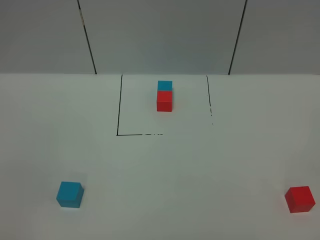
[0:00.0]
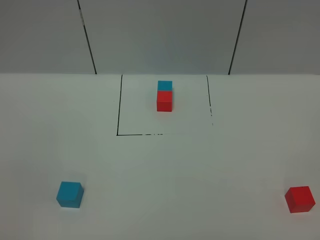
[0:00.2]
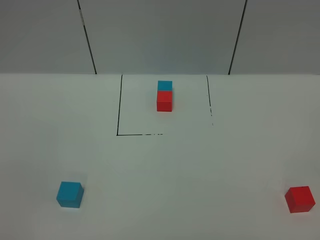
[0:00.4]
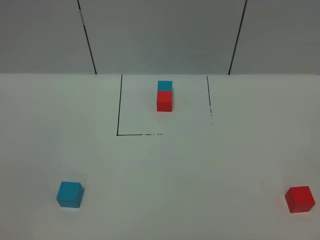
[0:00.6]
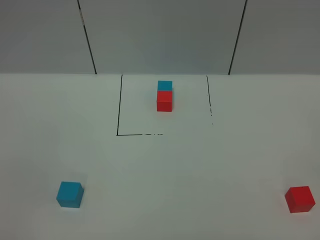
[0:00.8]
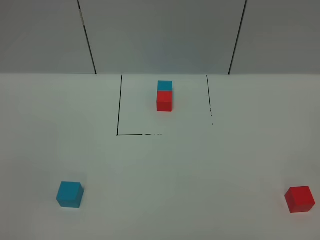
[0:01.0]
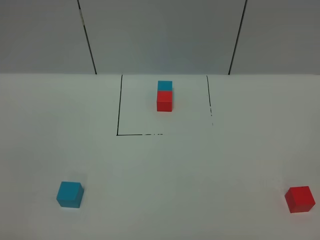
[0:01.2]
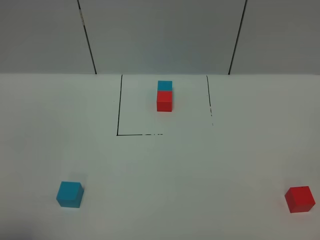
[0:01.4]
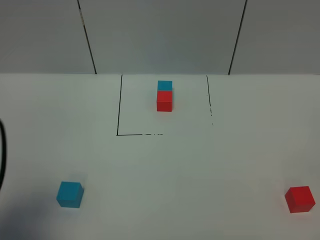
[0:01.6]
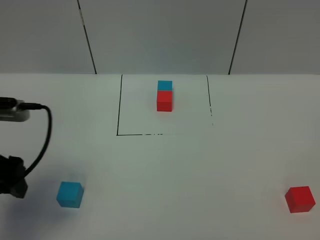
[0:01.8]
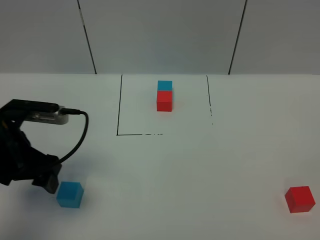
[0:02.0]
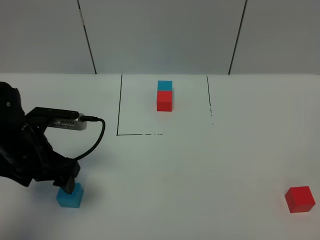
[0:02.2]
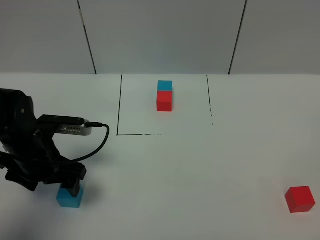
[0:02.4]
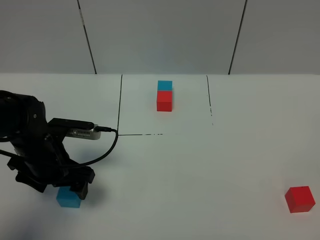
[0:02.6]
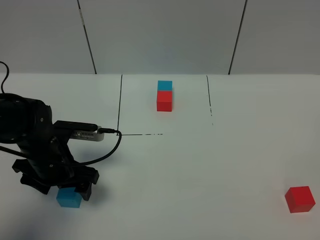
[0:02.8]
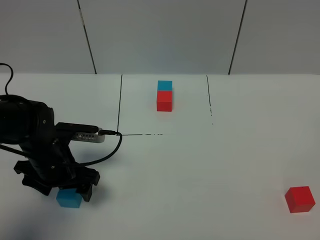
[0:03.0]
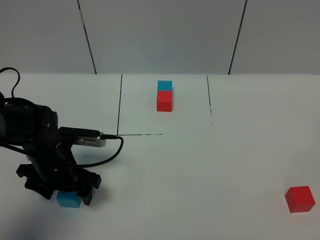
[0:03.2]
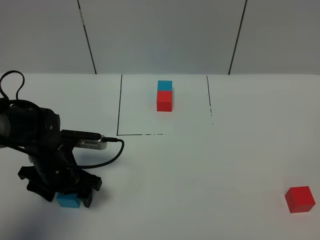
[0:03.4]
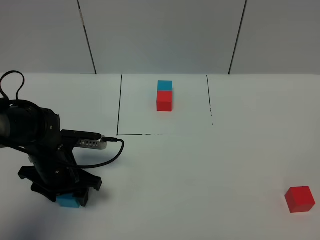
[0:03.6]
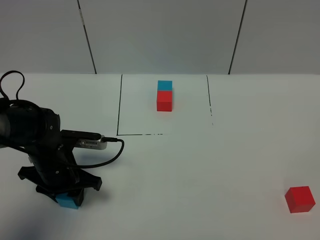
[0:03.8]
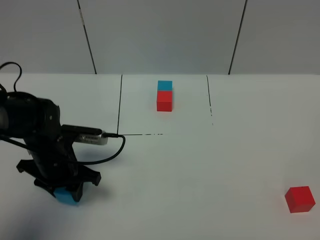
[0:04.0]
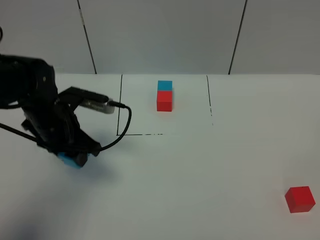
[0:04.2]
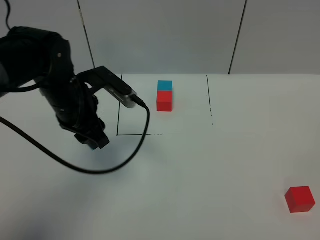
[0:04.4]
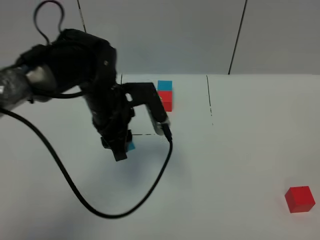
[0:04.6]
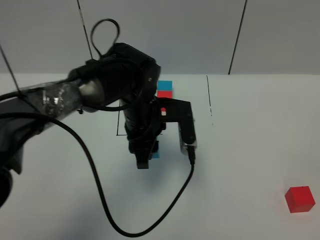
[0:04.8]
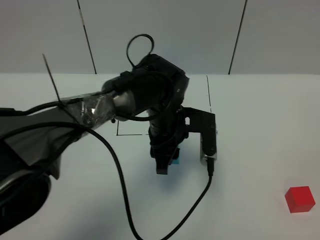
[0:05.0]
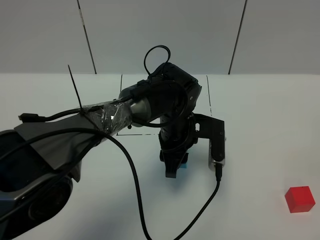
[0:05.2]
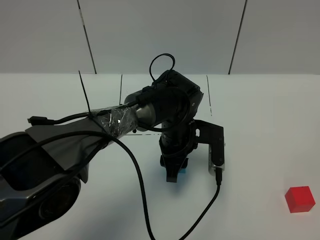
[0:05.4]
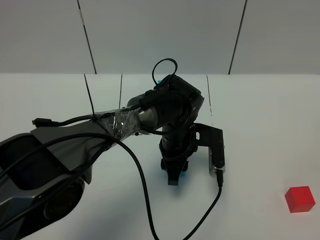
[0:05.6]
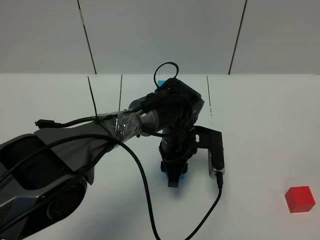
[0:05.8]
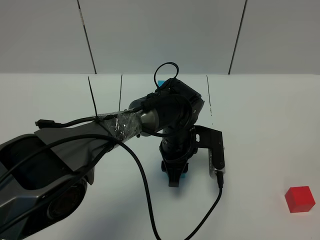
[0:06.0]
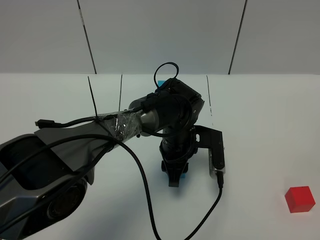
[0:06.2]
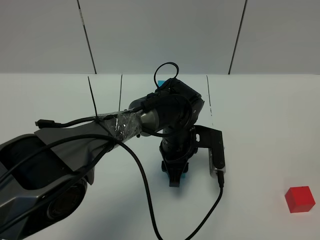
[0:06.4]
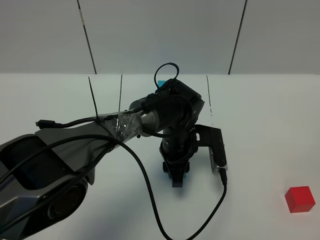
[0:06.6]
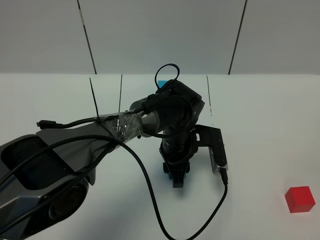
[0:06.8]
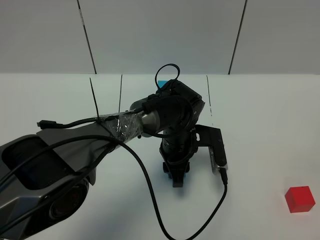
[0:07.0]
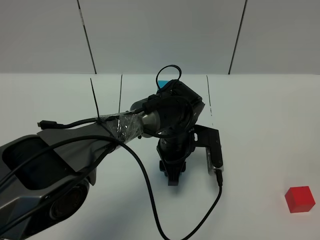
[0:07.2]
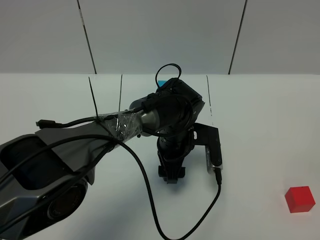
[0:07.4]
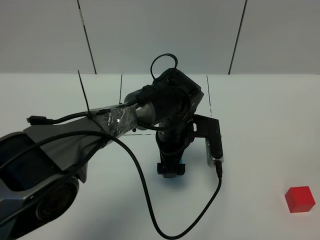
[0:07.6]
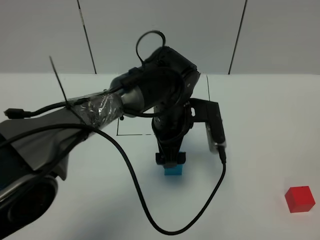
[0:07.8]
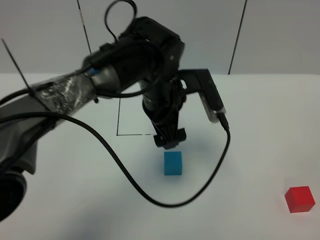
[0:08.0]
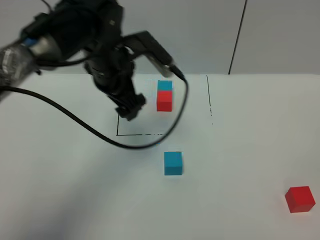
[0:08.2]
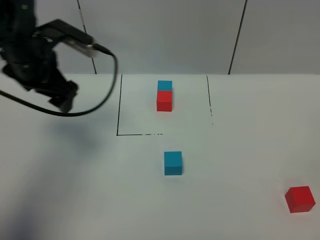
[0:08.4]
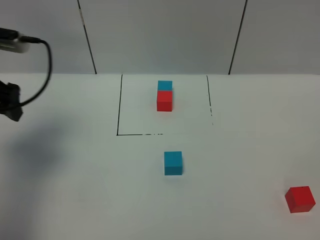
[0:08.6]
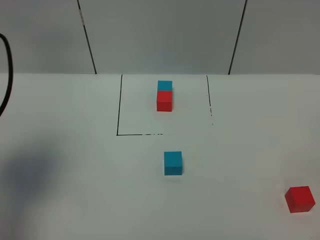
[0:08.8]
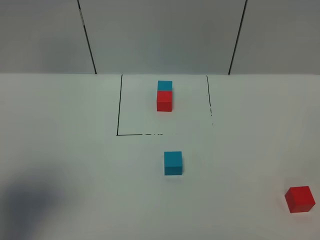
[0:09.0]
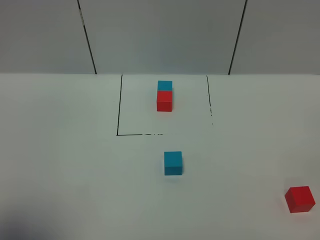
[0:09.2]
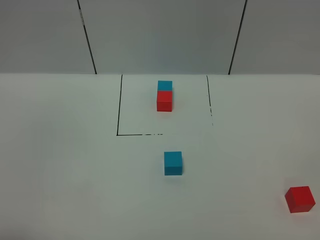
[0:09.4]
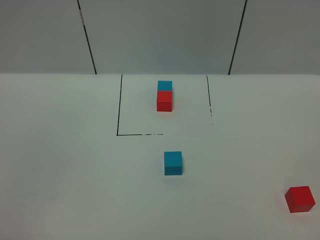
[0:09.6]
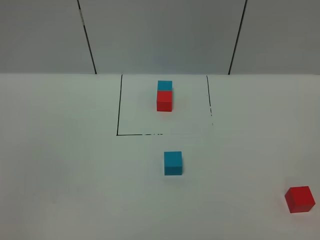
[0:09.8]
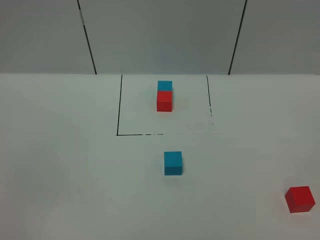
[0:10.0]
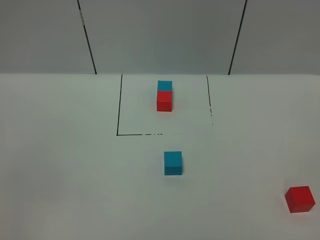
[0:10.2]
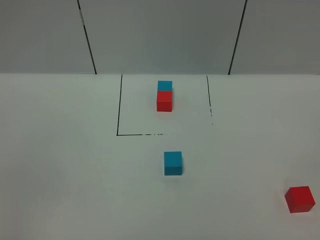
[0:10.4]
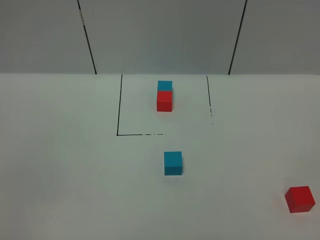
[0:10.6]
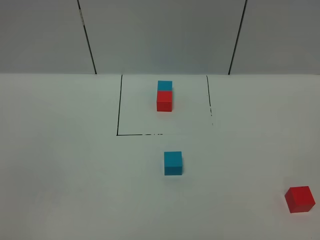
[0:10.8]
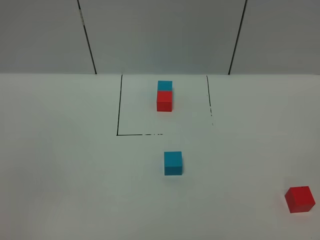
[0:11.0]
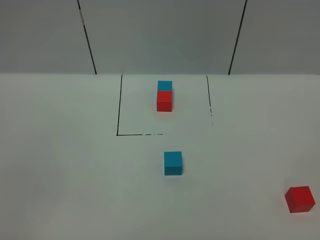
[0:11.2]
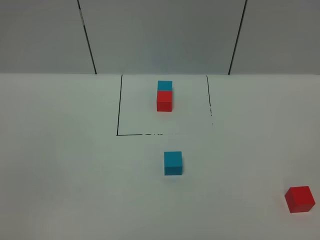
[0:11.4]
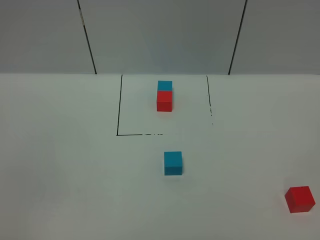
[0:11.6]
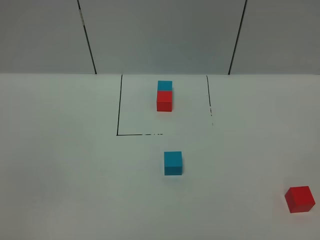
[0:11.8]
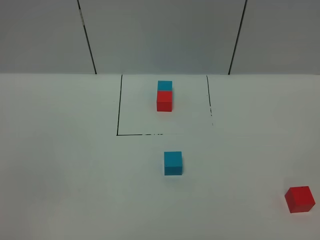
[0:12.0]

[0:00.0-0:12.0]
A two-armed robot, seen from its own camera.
Task of the whole recording: According to the building block template in front, assemble the scattered blocks together.
Step, 0:01.6 to 0:07.6: Put the blue cube in the center of the table.
0:00.0 to 0:01.6: The left gripper heads forward, covering approximately 20 cm.
0:01.6 to 0:03.0: The left gripper goes roughly 25 cm downward, forward and to the right.
0:03.0 to 0:04.4: The left gripper shifts roughly 15 cm upward, to the right and forward, and closes.
0:04.4 to 0:06.0: The left gripper is displaced to the right and downward by approximately 20 cm.
0:06.0 to 0:07.6: The left gripper opens its fingers.
0:07.6 to 0:09.0: The left gripper heads to the left, upward and backward, covering some 40 cm.
0:09.0 to 0:10.4: The left gripper is displaced backward and downward by approximately 20 cm.
0:10.4 to 0:12.0: Neither gripper changes place.

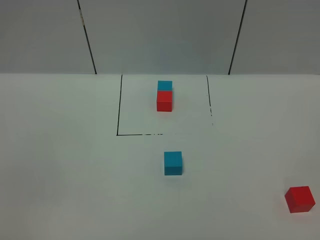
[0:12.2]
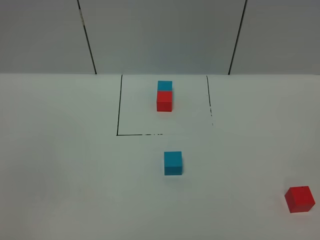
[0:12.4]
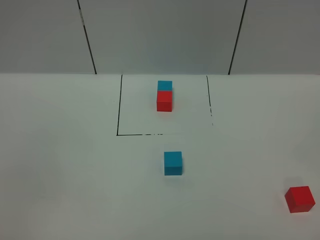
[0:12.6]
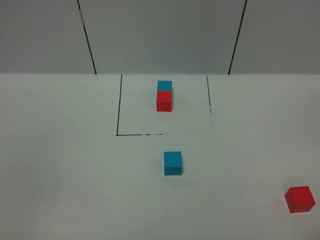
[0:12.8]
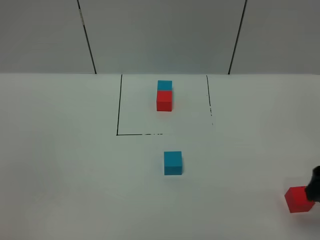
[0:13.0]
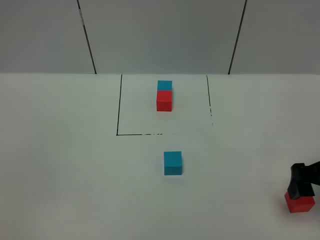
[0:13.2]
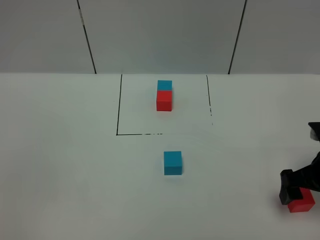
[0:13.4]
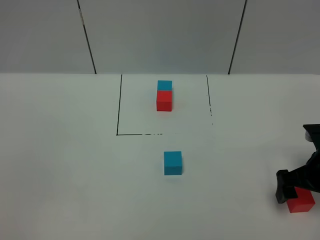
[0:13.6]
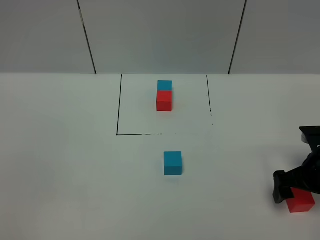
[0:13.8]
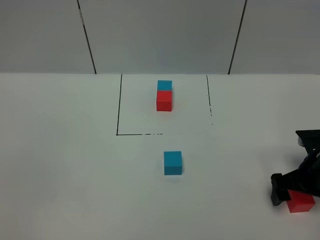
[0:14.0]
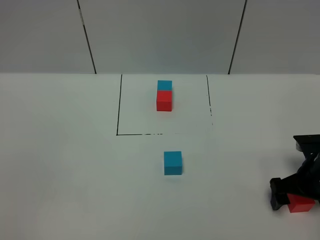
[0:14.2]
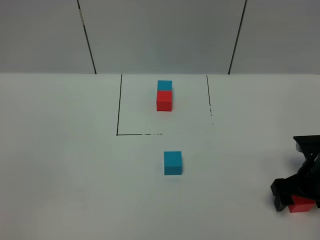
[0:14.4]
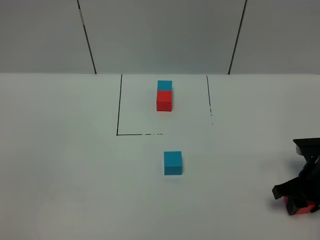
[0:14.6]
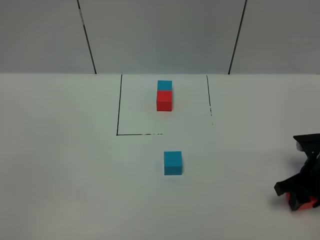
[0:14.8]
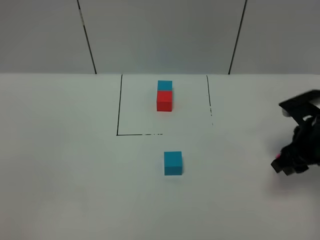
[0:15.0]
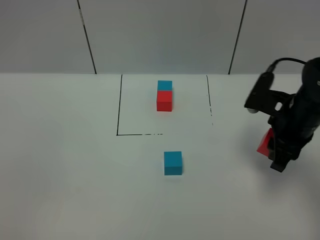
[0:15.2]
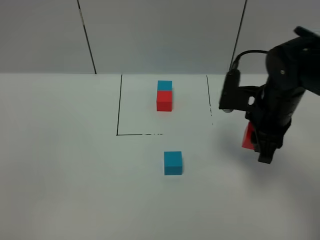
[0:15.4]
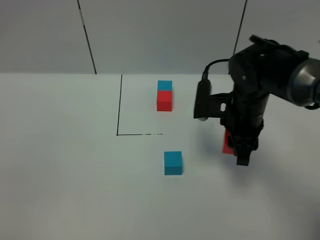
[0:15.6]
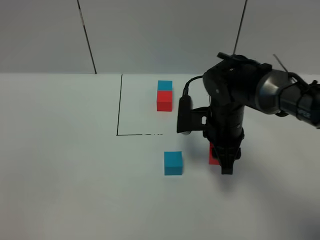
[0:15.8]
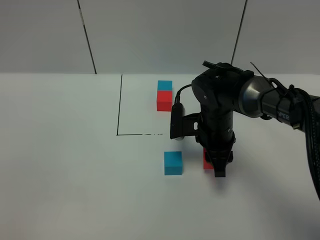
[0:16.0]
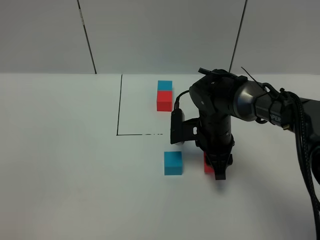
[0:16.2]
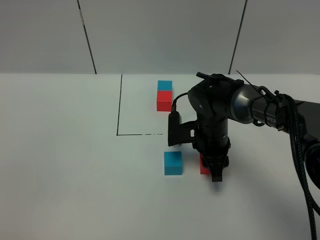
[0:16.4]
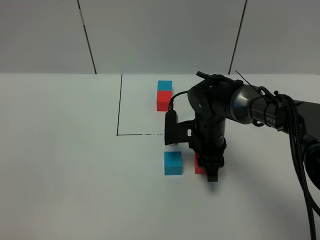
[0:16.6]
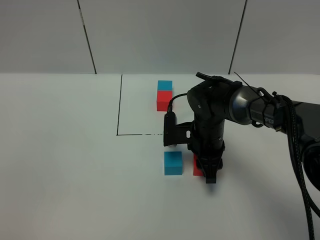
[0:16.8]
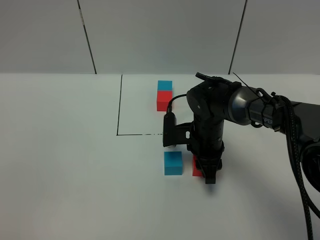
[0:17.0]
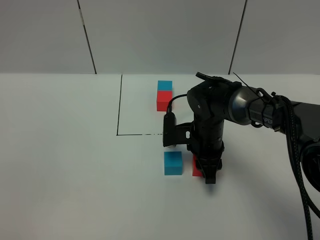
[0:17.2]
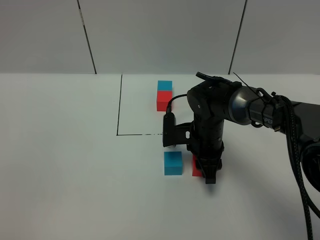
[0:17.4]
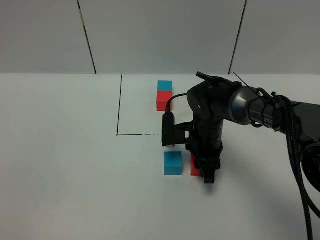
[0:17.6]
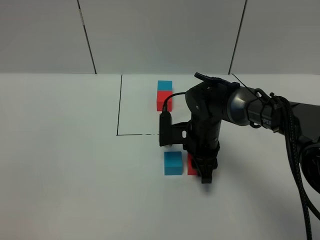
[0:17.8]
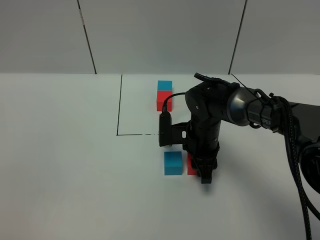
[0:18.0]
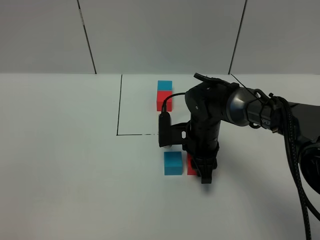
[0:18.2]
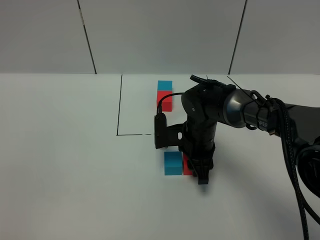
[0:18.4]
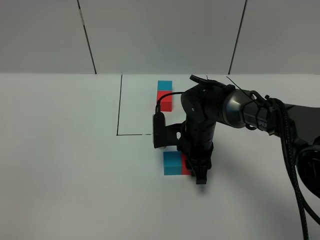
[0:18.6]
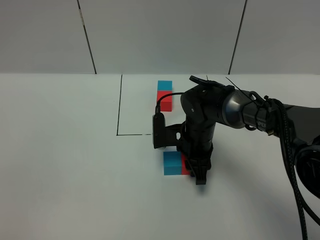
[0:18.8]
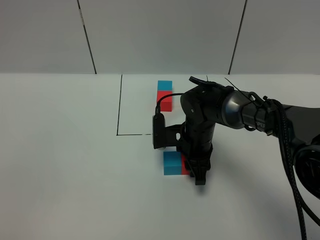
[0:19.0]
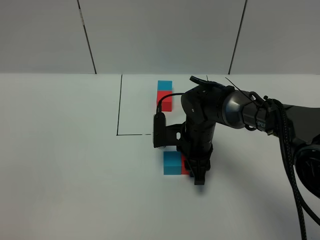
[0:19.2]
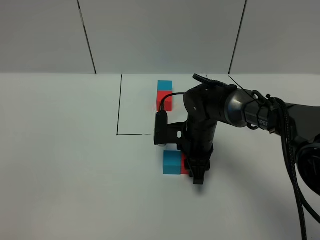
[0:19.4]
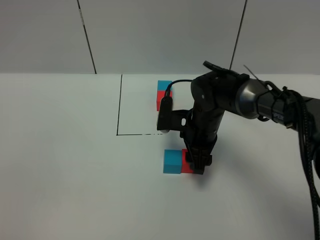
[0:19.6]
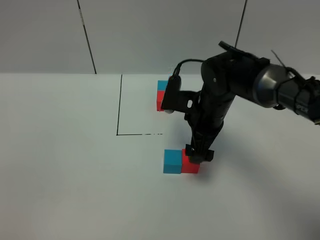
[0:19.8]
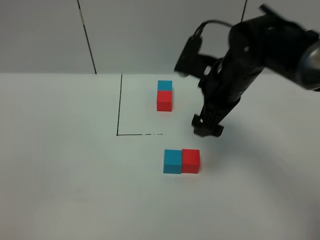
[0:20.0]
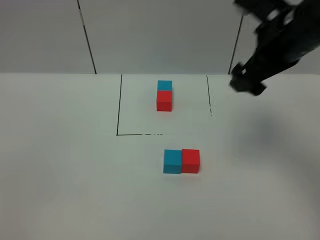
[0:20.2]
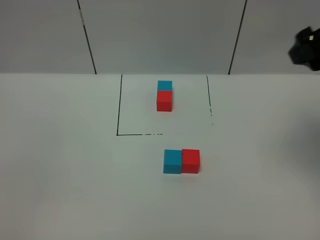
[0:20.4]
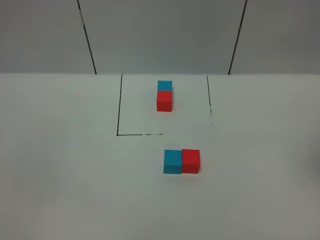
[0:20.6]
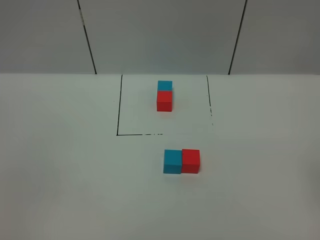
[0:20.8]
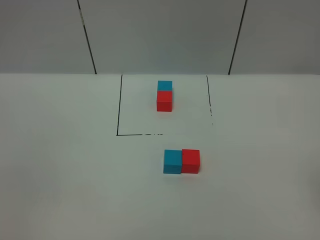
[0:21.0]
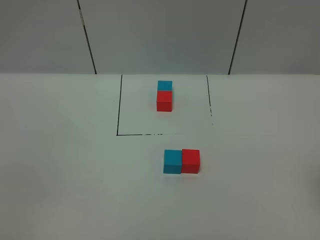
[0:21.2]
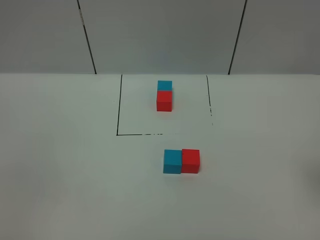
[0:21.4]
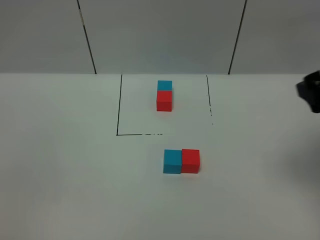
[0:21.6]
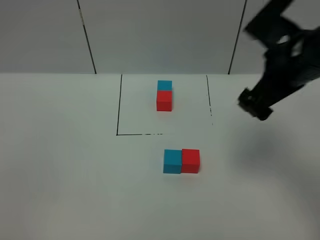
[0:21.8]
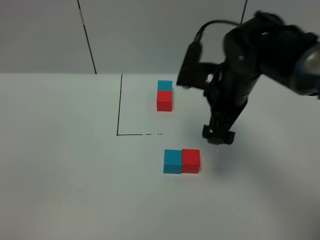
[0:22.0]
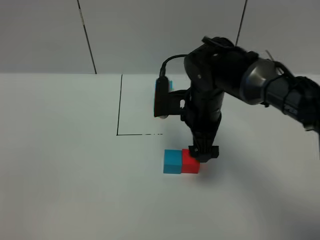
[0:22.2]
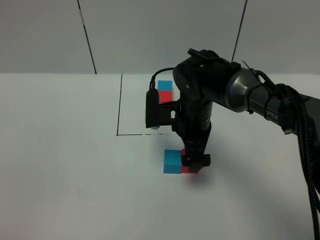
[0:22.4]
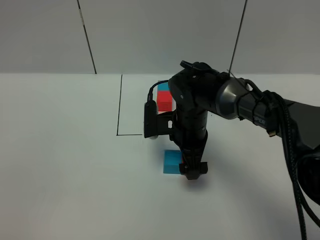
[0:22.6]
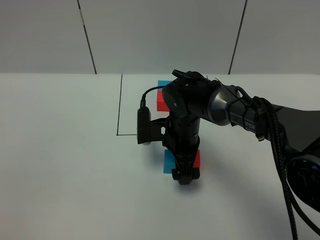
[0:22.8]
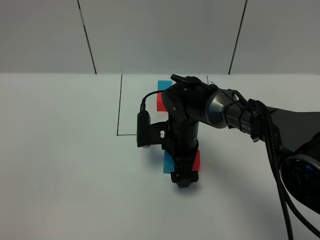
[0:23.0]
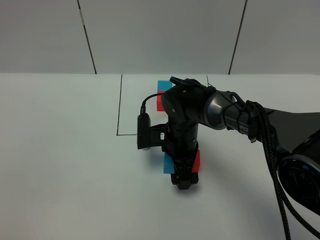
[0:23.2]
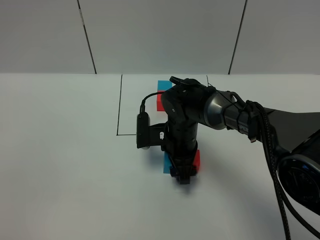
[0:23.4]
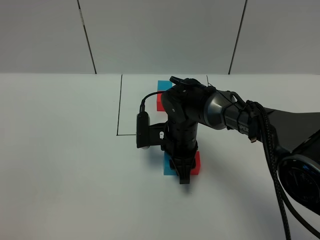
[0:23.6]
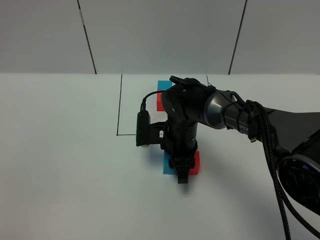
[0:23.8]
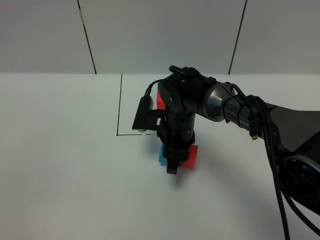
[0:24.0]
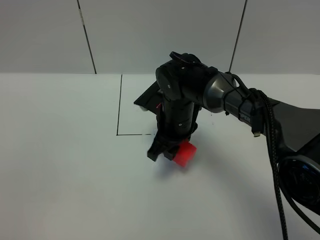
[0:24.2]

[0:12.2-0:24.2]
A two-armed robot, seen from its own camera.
Task of the whole recording: According to the building block template in front, assemble the scattered blocks together.
Step, 0:12.2 to 0:19.6: Put the red cube on the right of the blue cube.
0:12.2 to 0:13.8: The right gripper moves forward and downward, approximately 30 cm.
0:13.8 to 0:15.2: The right gripper is displaced upward and to the left by about 10 cm, and closes.
0:15.2 to 0:16.6: The right gripper goes about 15 cm to the left and downward.
0:16.6 to 0:18.2: Both grippers stay put.
0:18.2 to 0:19.8: The right gripper travels upward by some 10 cm, and opens up.
0:19.8 to 0:21.2: The right gripper heads to the right, backward and upward, covering approximately 35 cm.
0:21.2 to 0:22.6: The right gripper travels to the left, downward and forward by approximately 40 cm.
0:22.6 to 0:24.2: The right gripper closes.
